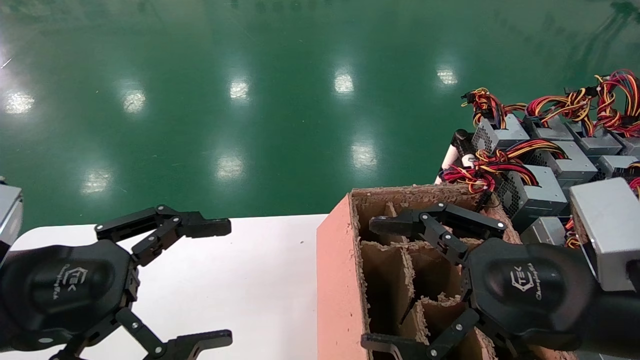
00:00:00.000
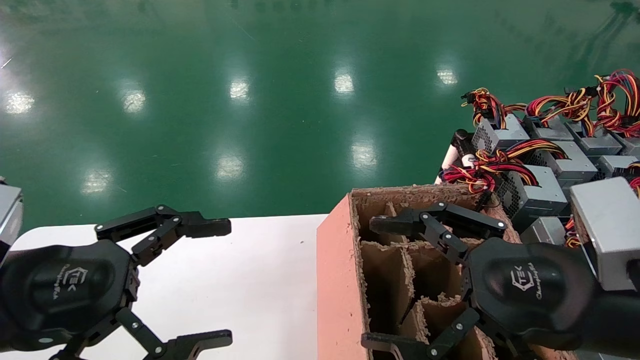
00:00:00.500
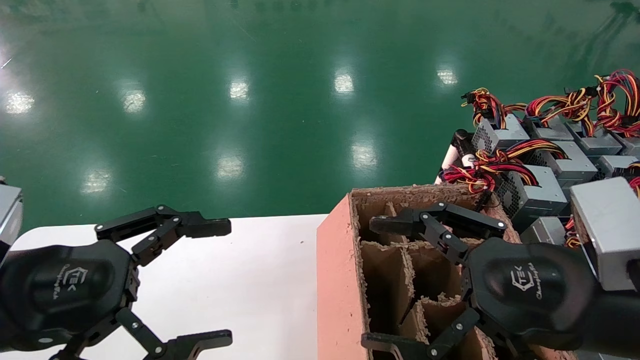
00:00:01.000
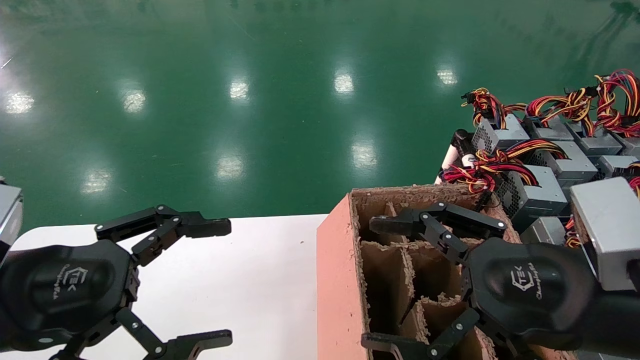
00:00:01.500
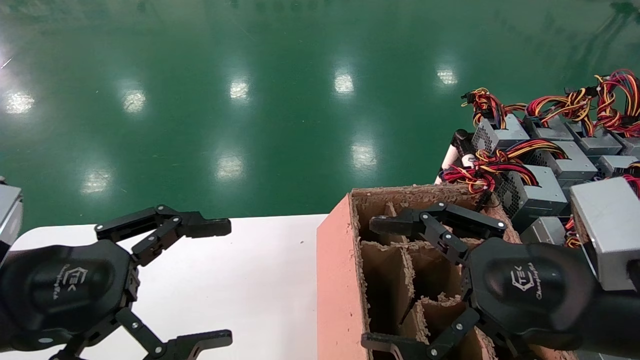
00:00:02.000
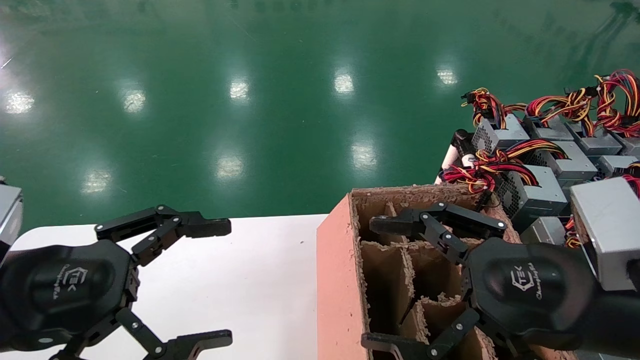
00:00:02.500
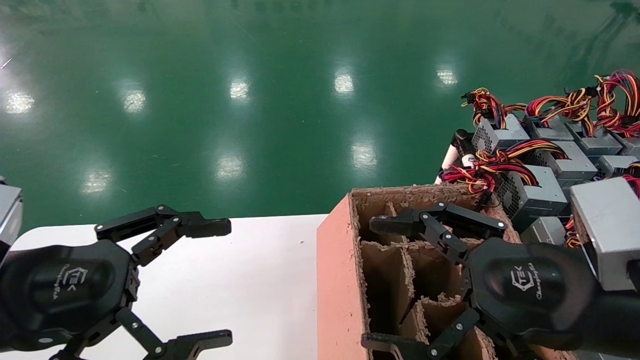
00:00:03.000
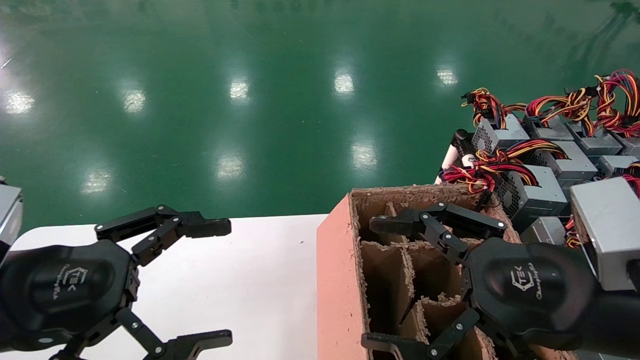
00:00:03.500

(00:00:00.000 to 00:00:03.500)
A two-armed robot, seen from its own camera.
00:00:00.000 - 00:00:03.500: Neither gripper changes place.
